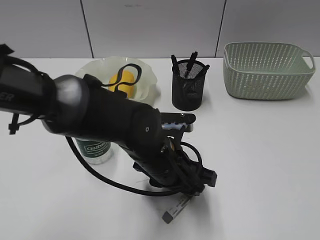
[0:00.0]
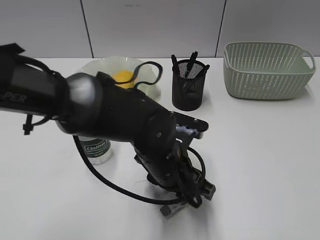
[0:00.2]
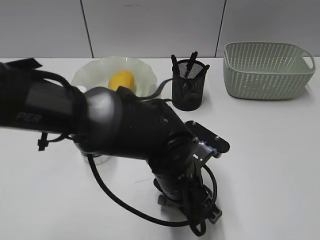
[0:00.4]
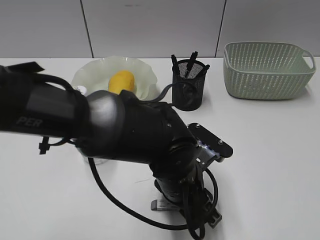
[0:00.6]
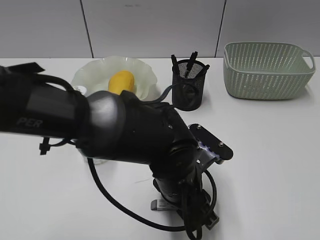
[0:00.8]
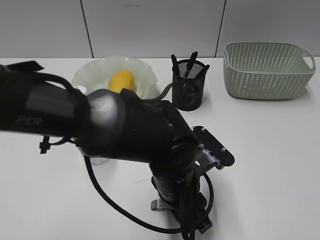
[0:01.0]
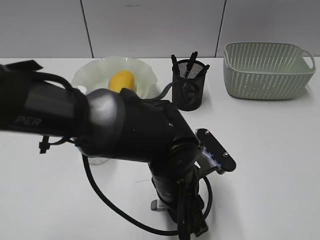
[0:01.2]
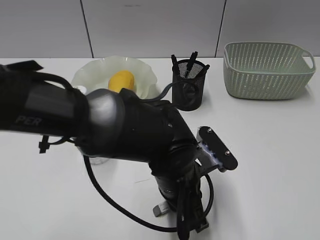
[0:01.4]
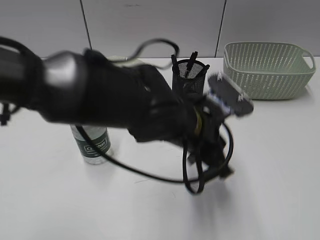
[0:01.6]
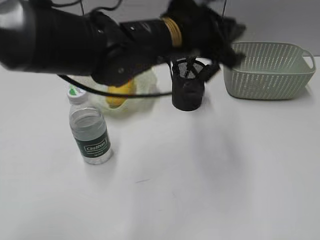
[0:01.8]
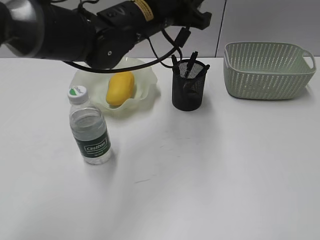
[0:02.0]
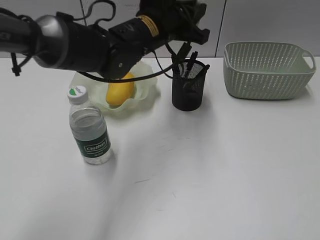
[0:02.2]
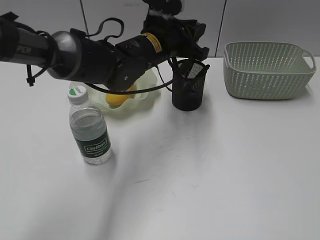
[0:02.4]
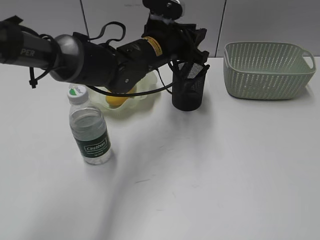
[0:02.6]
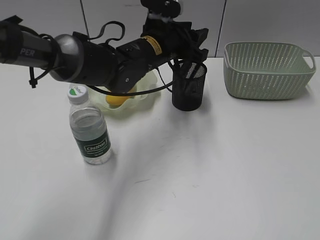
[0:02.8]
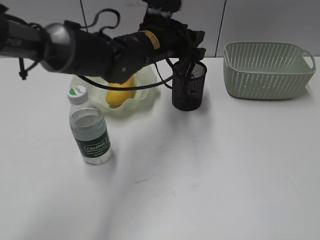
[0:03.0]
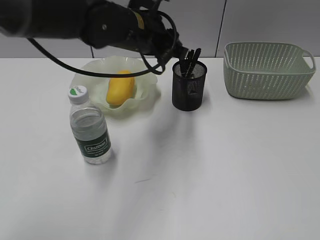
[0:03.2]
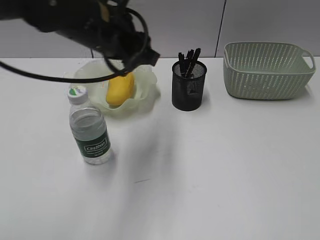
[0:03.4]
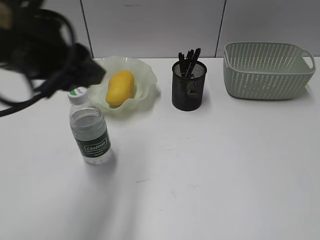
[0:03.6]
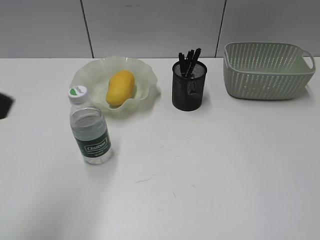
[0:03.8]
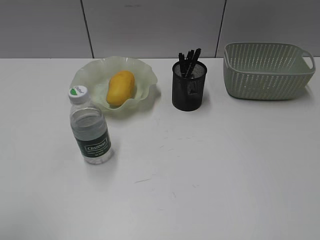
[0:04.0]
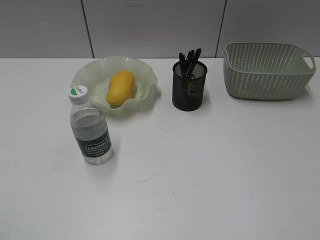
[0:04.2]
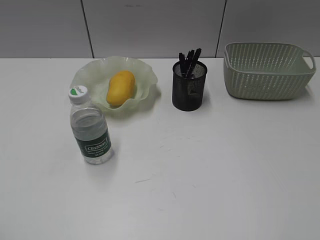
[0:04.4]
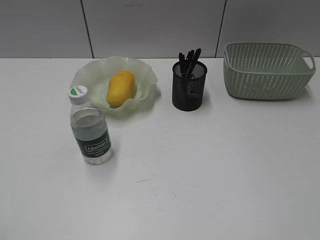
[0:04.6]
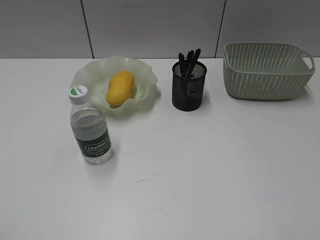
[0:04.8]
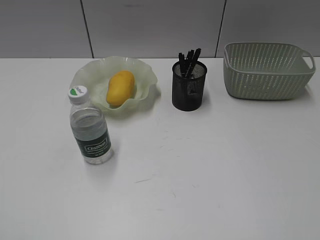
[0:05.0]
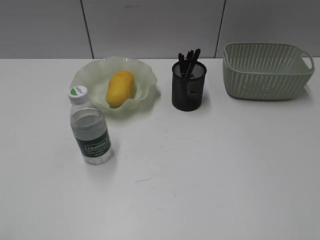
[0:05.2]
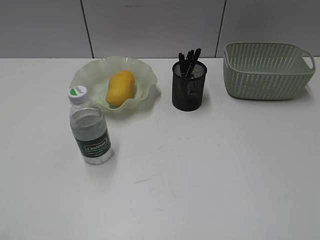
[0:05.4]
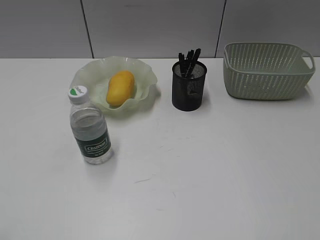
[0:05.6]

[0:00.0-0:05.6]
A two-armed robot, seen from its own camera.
Step, 0:01.4 to 0:03.0: Place the eraser in pen holder with left gripper.
0:00.0 to 0:01.4: The left gripper closes up.
0:01.4 to 0:02.8: The left gripper heads forward and upward, covering approximately 20 cm, and opens up.
0:02.8 to 0:04.2: The right gripper opens its fingers. The left gripper shifts some 50 cm backward and to the left, and opens up.

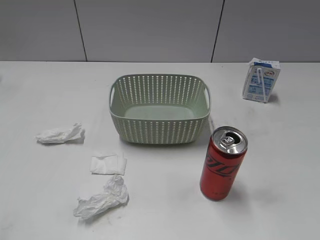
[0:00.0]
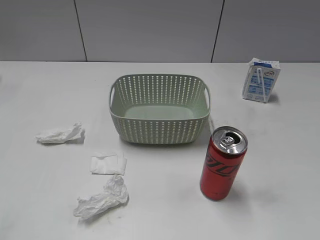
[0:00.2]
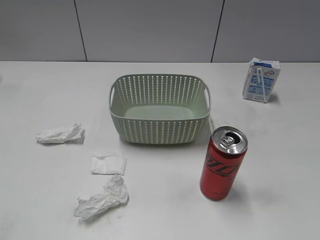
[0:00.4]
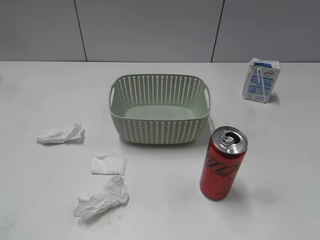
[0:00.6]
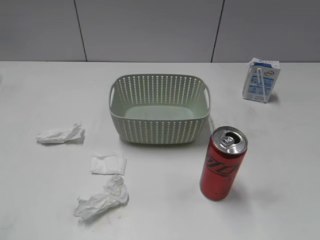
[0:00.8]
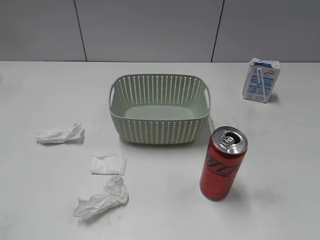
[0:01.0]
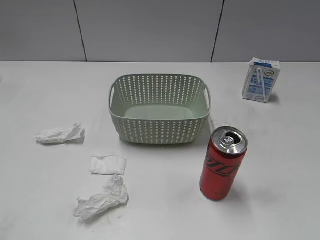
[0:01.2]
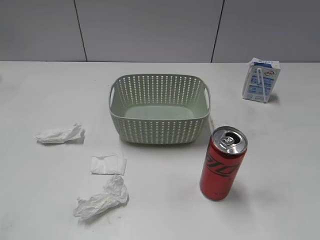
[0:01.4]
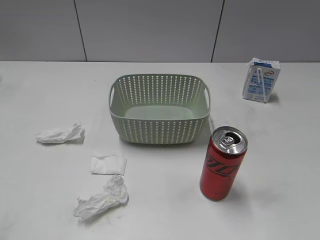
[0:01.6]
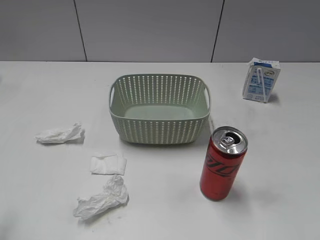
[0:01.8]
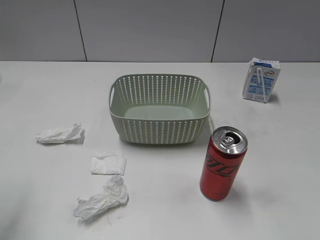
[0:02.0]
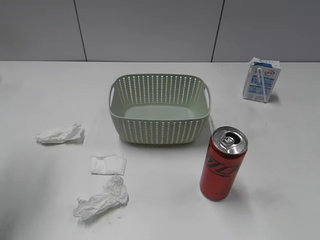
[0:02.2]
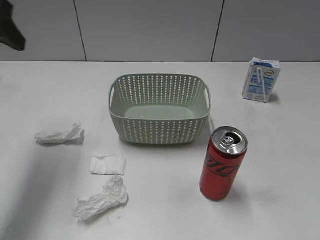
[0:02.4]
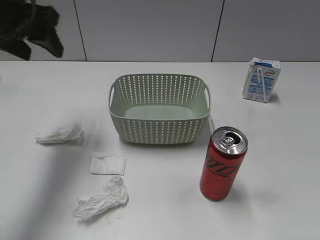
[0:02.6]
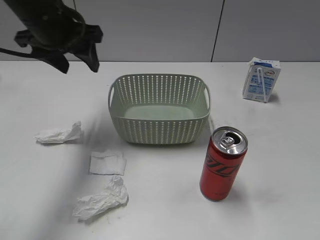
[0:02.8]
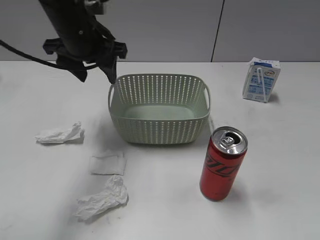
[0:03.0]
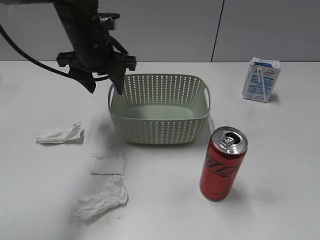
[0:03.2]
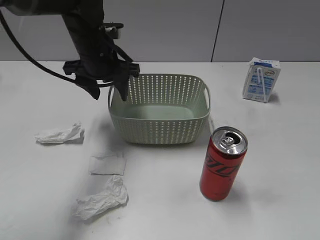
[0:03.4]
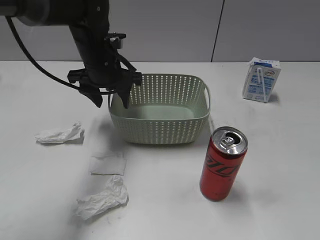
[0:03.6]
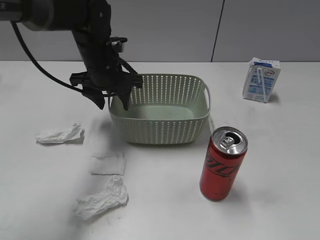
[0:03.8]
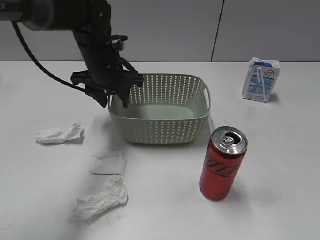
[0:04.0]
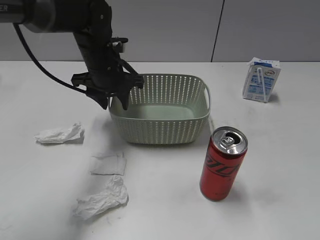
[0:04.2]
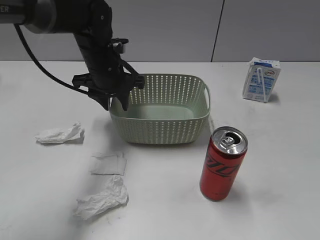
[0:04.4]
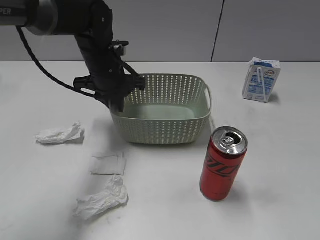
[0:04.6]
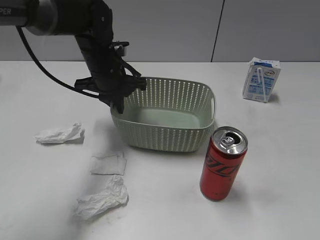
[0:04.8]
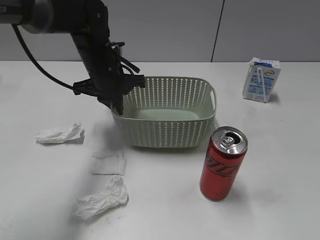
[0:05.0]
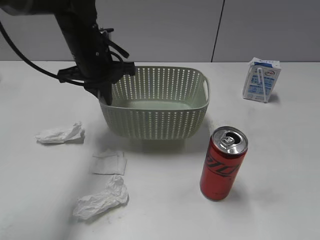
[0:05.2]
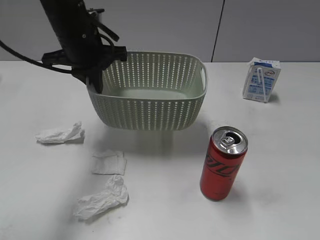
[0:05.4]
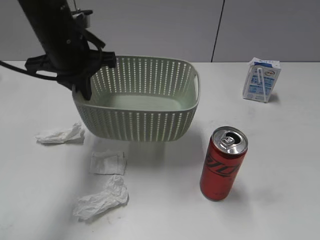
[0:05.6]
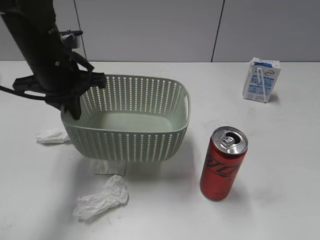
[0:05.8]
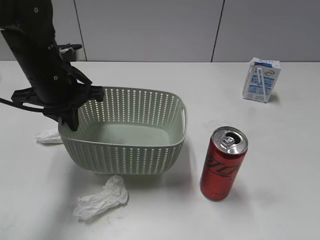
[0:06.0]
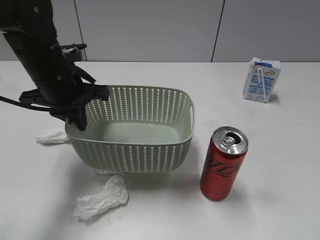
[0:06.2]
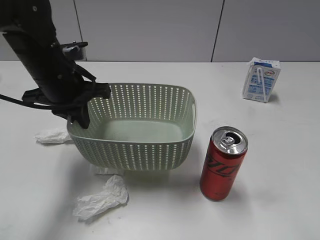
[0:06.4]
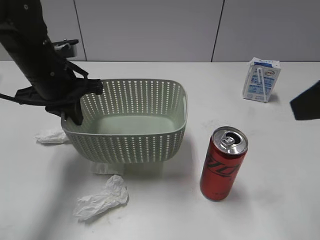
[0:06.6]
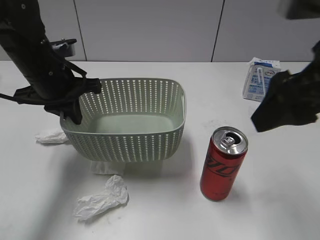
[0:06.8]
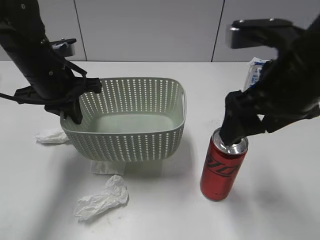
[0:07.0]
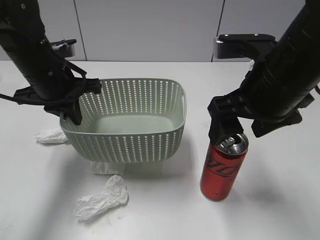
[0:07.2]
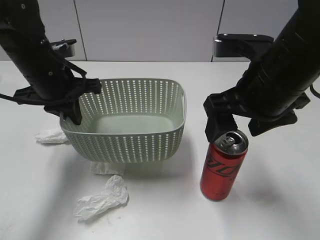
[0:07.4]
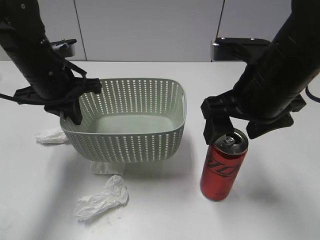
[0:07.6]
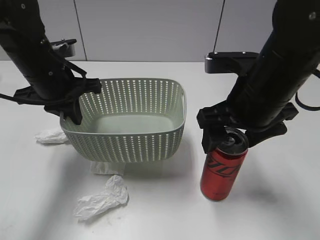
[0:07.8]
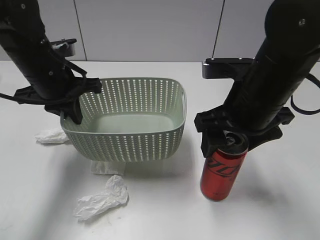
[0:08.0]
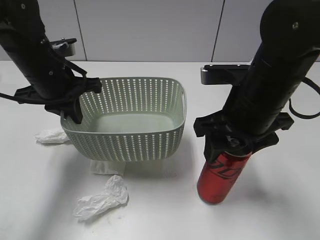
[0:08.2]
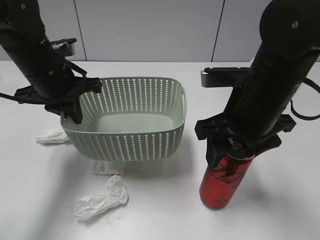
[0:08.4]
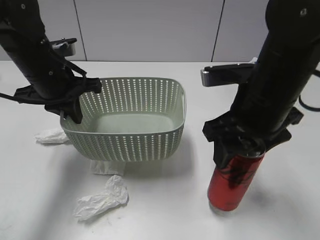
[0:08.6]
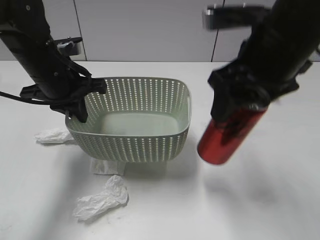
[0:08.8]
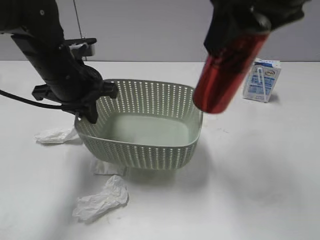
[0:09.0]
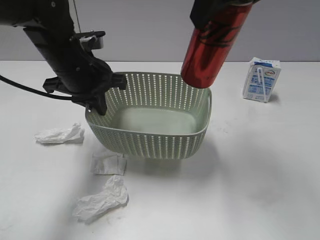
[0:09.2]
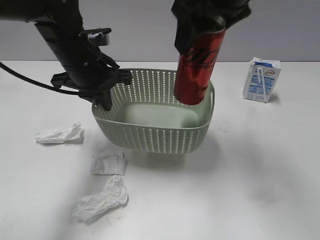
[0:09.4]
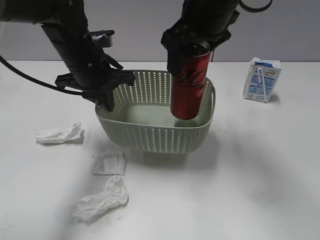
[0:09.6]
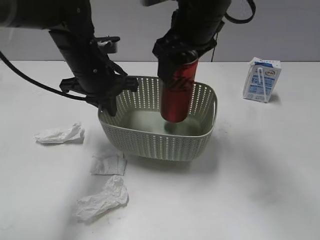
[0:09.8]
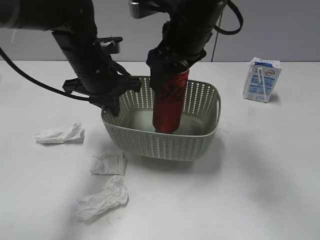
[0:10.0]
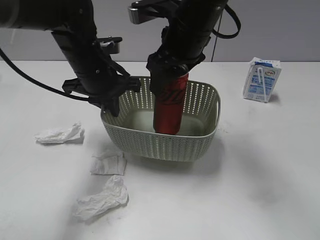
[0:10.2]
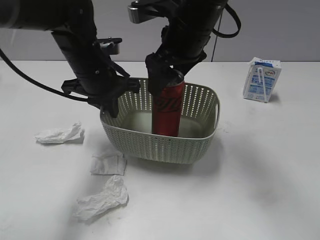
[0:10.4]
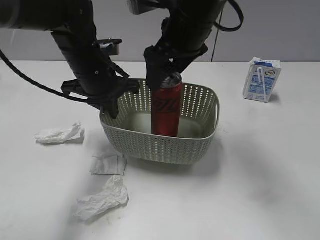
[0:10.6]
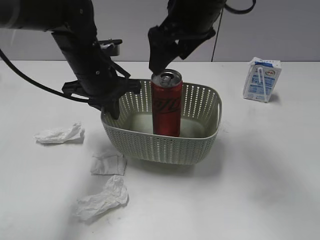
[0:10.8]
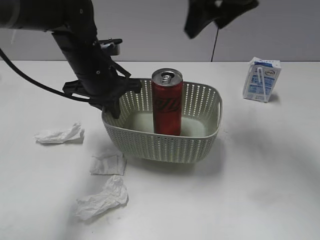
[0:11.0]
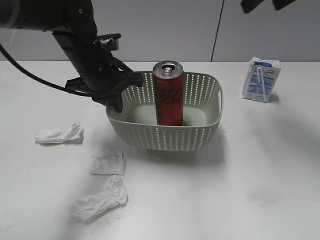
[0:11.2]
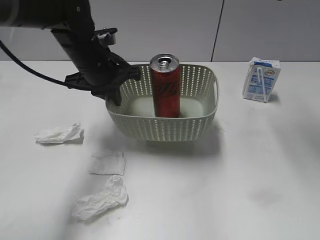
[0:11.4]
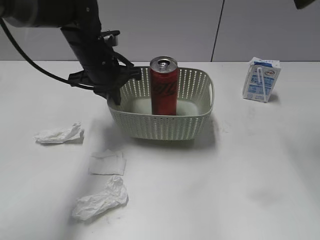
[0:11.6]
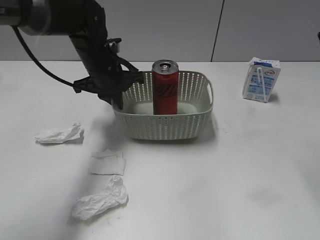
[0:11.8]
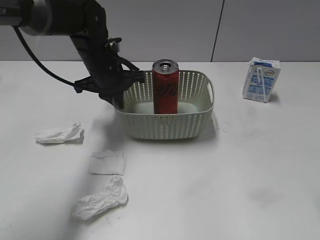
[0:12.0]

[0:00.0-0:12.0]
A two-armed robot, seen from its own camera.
Step, 0:02.4 to 0:04.6: Grasp the basket with left gripper.
Step, 0:04.8 to 0:06.4: Lift the basket with left gripper.
Step, 0:06.6 to 0:08.2: Grasp the cola can with right gripper.
Step, 0:08.4 to 0:10.8: Place the cola can in the basket with right gripper.
0:01.6 to 0:03.0: The left gripper travels forward and to the right by about 40 cm.
0:03.0 to 0:04.4: The left gripper is displaced downward by some 10 cm.
0:04.4 to 0:06.0: The left gripper goes roughly 10 cm backward and to the left, and closes up, while the right gripper heads upward, covering about 10 cm, and opens.
0:06.0 to 0:07.6: The right gripper moves forward, to the left and downward, roughly 25 cm.
0:07.6 to 0:09.0: The right gripper shifts approximately 15 cm upward, and closes.
0:09.0 to 0:10.4: The right gripper heads downward, forward and to the left, covering about 15 cm, and opens up.
0:10.4 to 0:12.0: The right gripper goes roughly 30 cm to the right, backward and upward, while the left gripper goes some 5 cm forward.

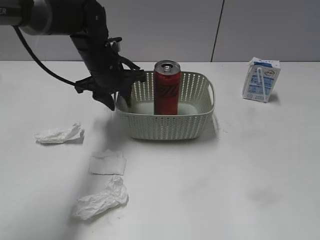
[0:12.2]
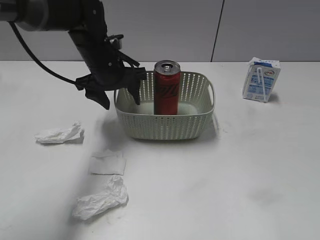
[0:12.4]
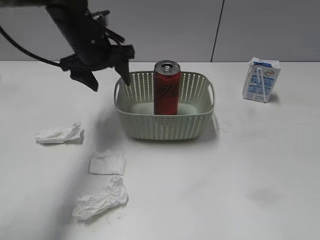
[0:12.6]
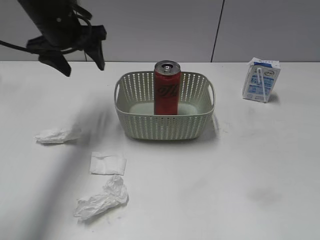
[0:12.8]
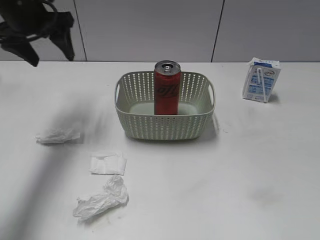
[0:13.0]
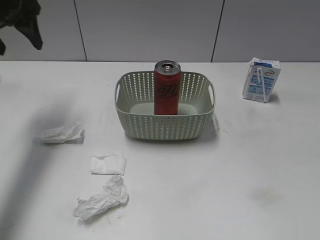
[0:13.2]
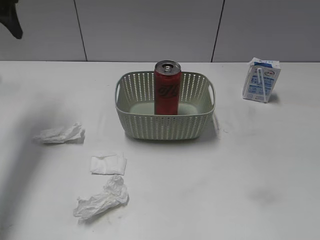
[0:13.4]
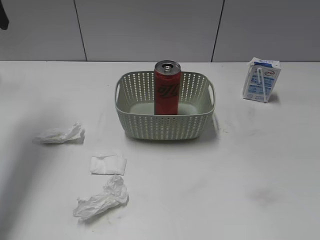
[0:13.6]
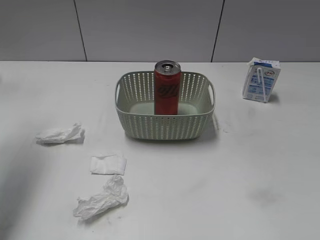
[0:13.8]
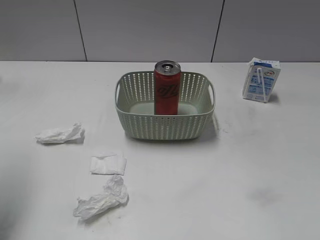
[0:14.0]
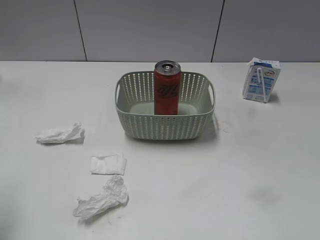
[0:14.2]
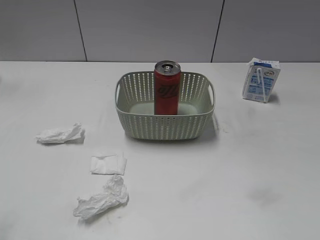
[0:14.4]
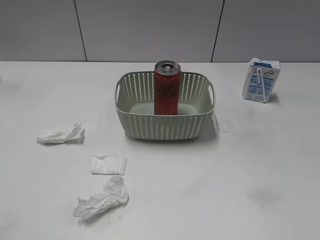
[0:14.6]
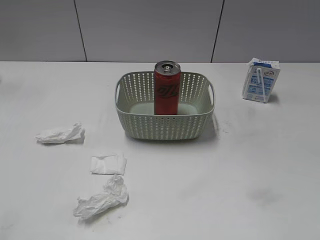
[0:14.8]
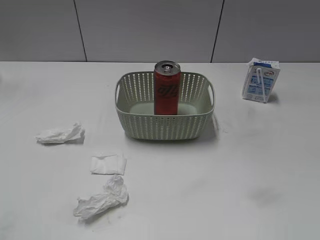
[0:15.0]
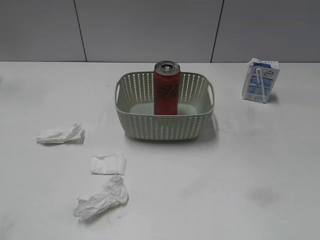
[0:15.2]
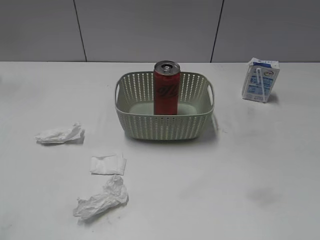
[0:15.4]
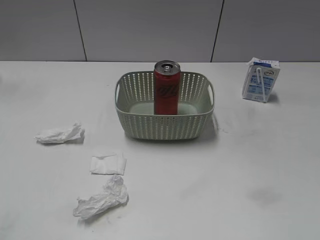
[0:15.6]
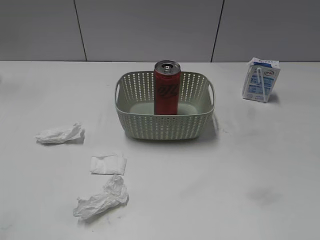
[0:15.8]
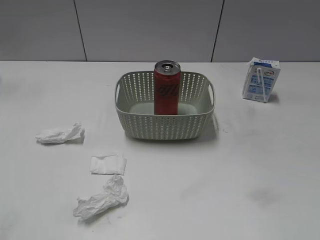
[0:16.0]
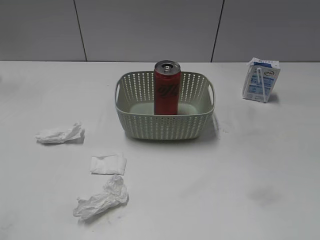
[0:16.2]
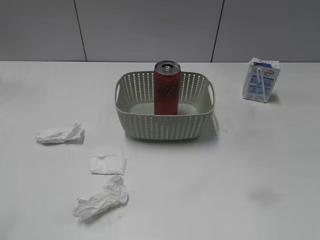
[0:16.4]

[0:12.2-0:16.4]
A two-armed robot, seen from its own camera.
0:12.2 to 0:13.6: The left gripper heads to the left and upward, covering roughly 30 cm, and opens. Meanwhile the right gripper heads backward and downward, covering about 15 cm.
0:13.6 to 0:15.0: The left gripper travels backward by approximately 35 cm.
0:15.0 to 0:16.4: Neither gripper changes place.
